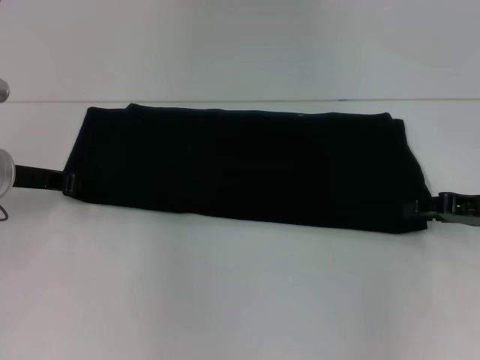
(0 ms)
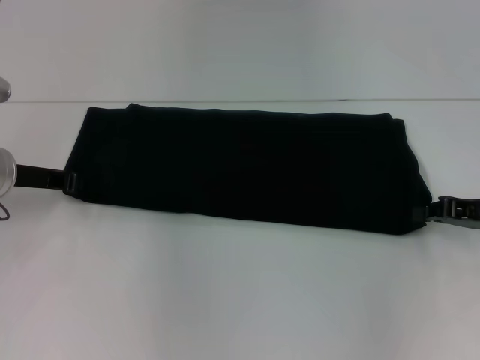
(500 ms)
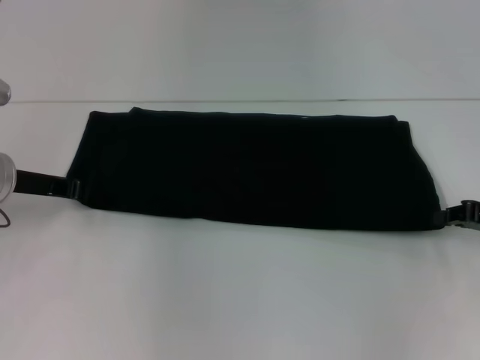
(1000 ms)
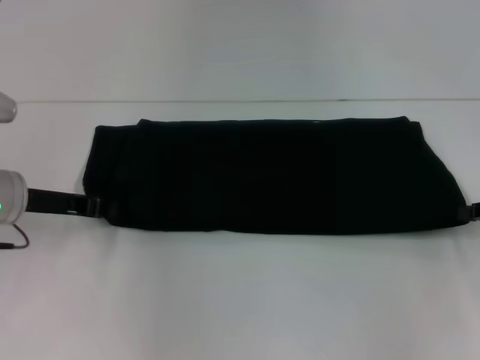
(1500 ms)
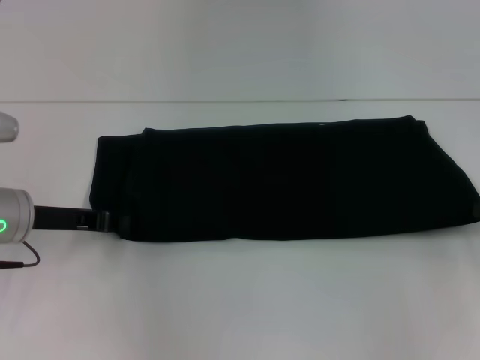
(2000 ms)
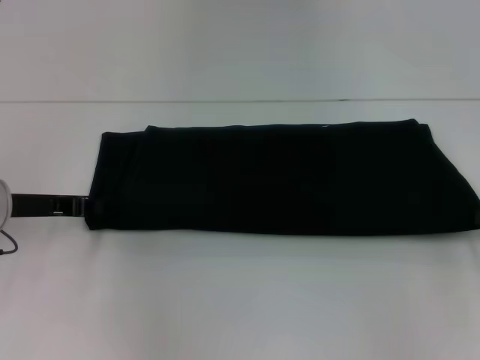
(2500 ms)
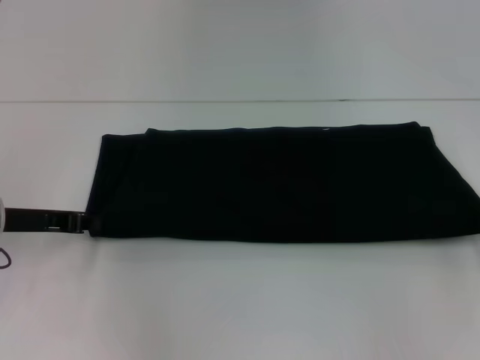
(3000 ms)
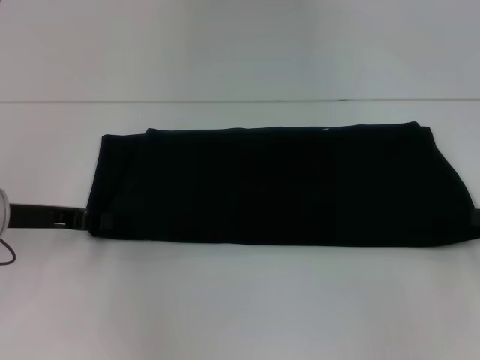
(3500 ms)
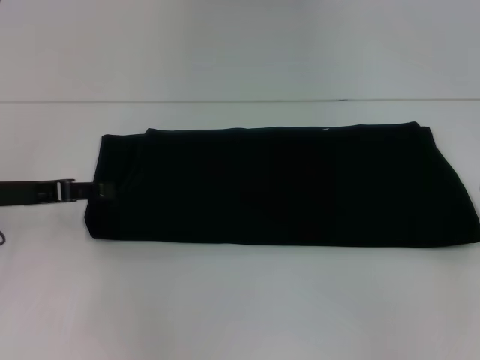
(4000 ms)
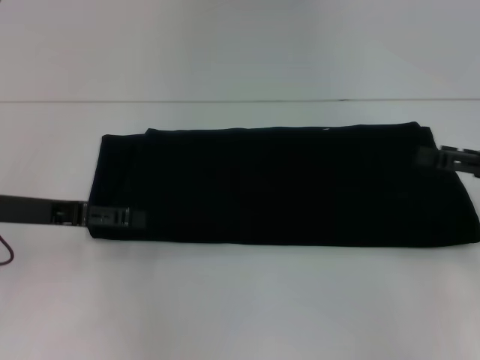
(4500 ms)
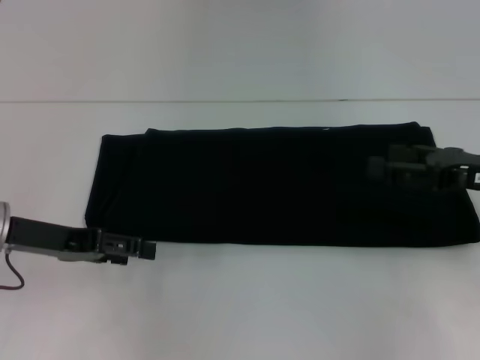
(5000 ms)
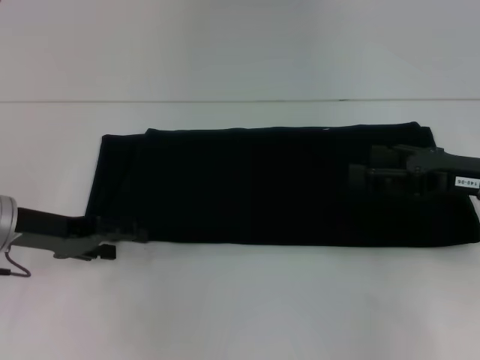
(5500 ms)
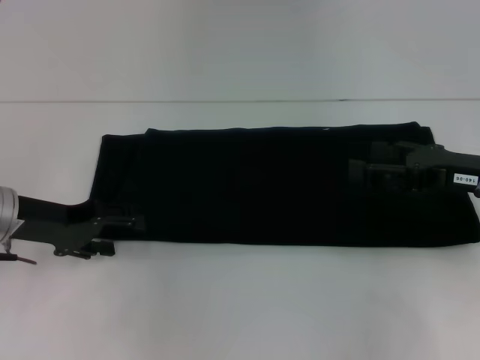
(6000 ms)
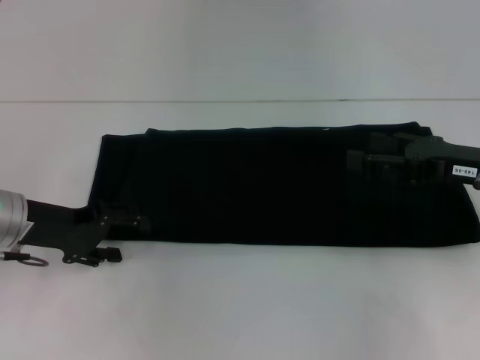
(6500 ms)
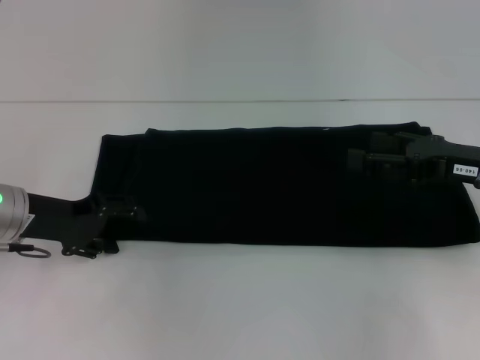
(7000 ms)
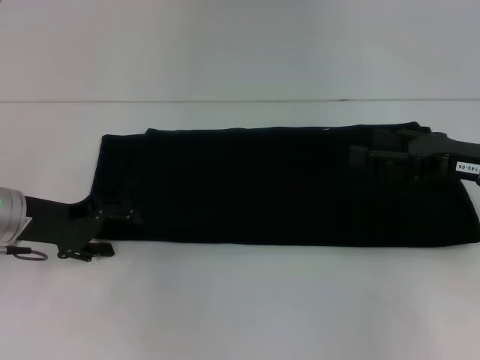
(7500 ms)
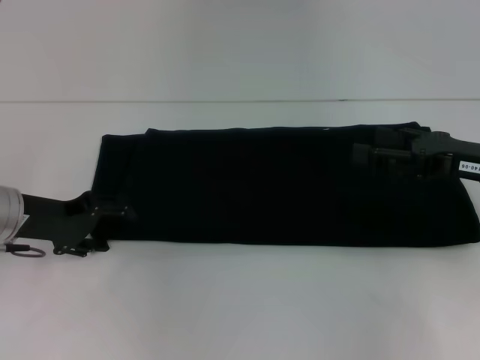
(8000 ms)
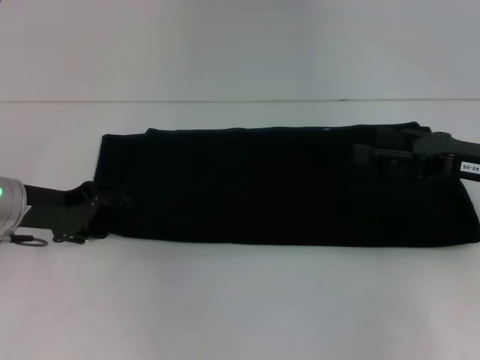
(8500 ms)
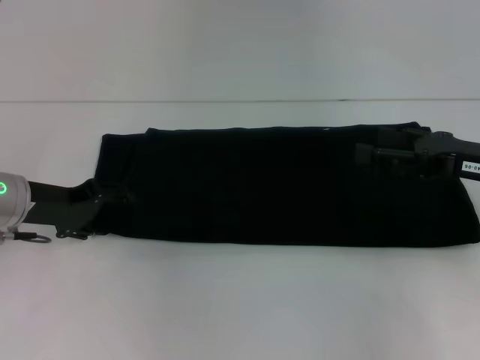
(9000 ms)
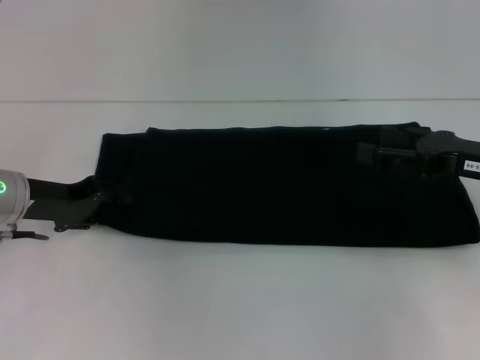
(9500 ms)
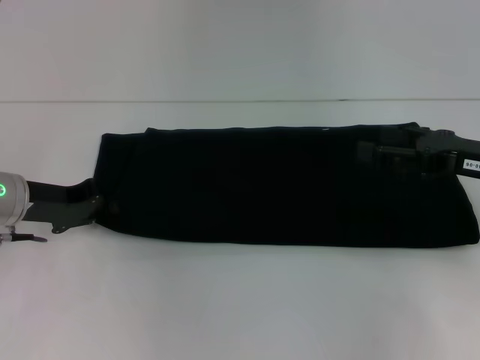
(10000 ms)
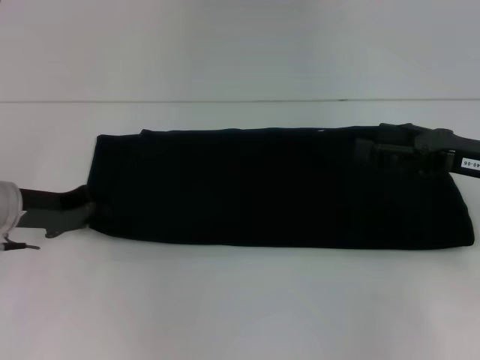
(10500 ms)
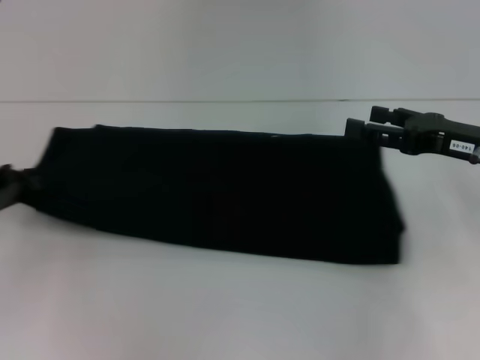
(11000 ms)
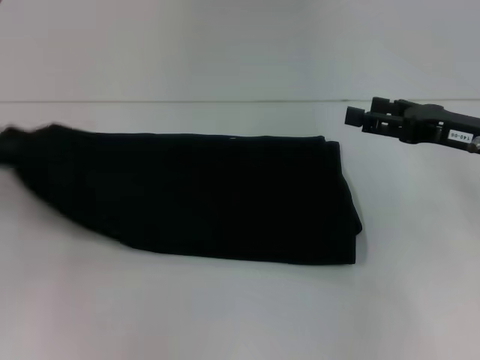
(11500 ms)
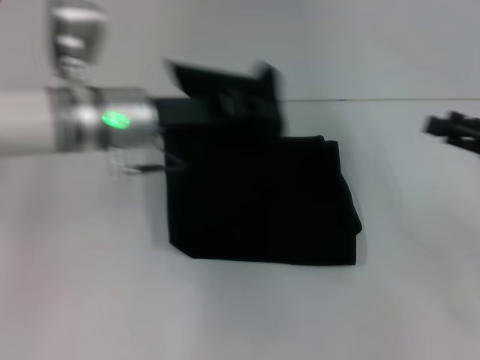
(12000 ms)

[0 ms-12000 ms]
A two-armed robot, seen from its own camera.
0 ms to 2000 ms: The right gripper goes some 5 cm to the right, and closes its fingers. Meanwhile the left gripper moves about 5 cm.
2000 ms to 4000 ms: The left gripper opens up, while the right gripper opens its fingers.
4000 ms to 6000 ms: The right gripper moves to the left, approximately 10 cm, and opens up. The left gripper opens.
6000 ms to 8000 ms: The grippers move only a little.
8000 ms to 10000 ms: The left gripper closes.
10000 ms to 12000 ms: The left gripper travels to the right and upward by approximately 15 cm; the right gripper is displaced to the right by roughly 5 cm.

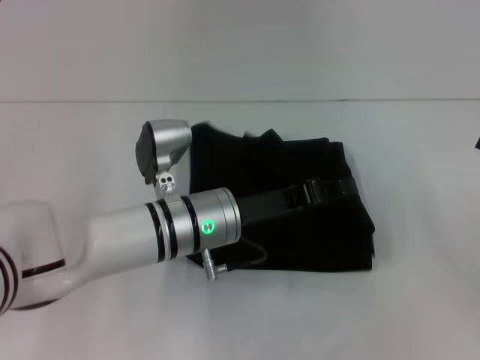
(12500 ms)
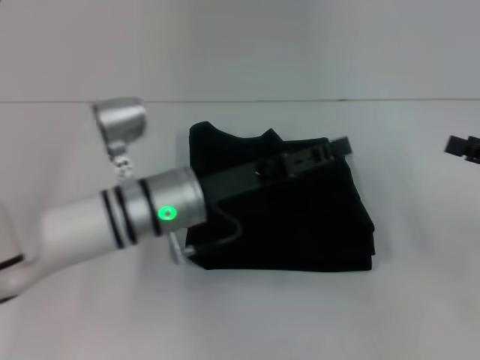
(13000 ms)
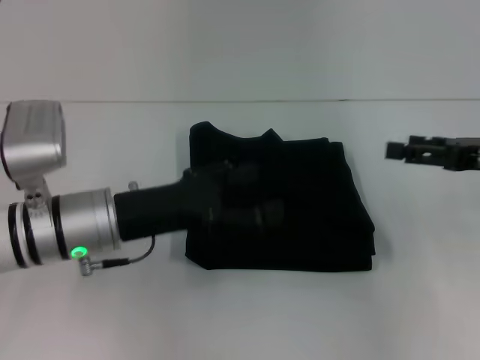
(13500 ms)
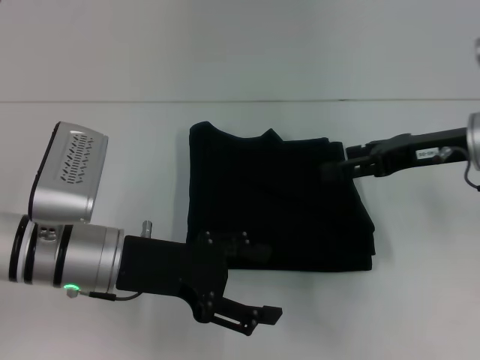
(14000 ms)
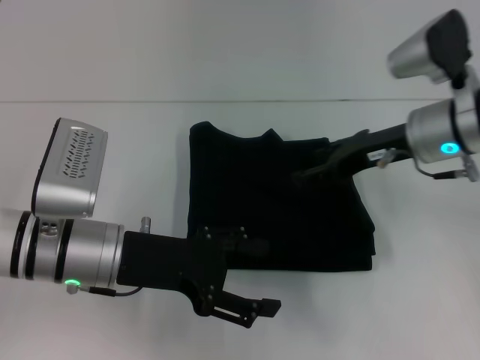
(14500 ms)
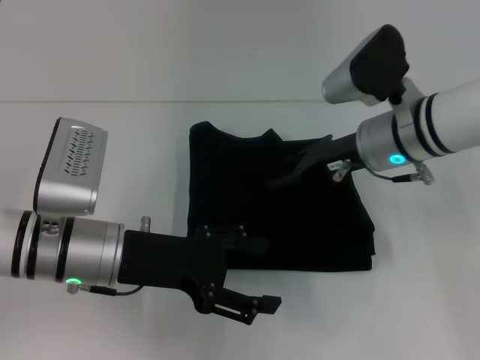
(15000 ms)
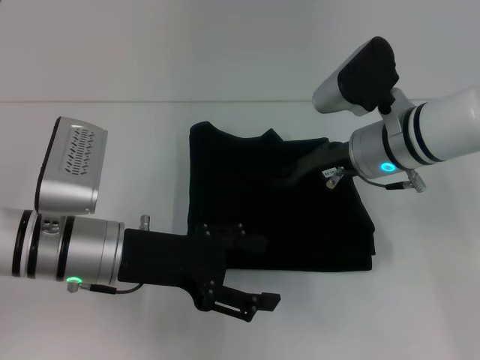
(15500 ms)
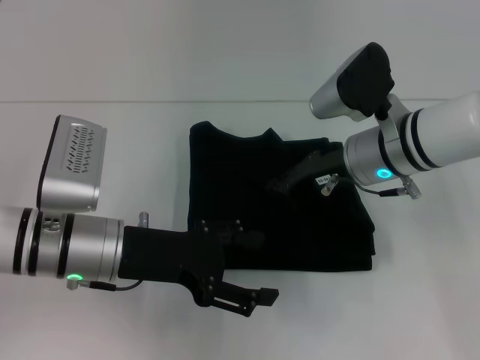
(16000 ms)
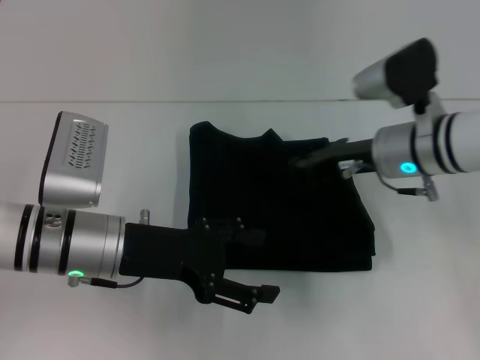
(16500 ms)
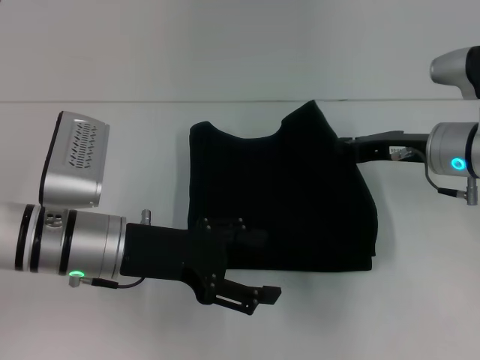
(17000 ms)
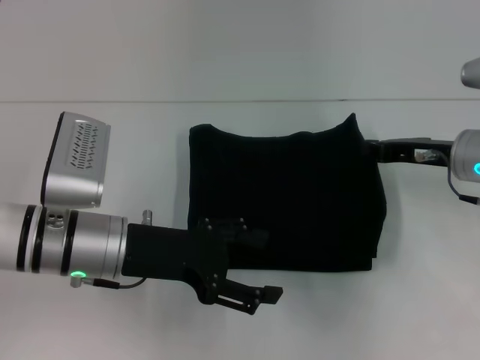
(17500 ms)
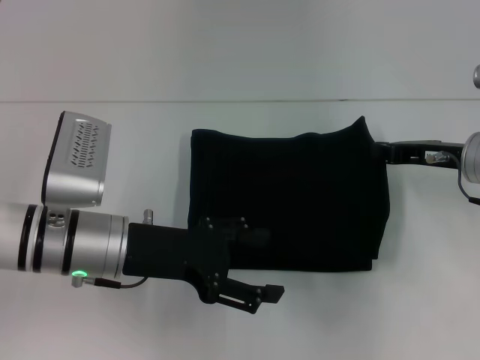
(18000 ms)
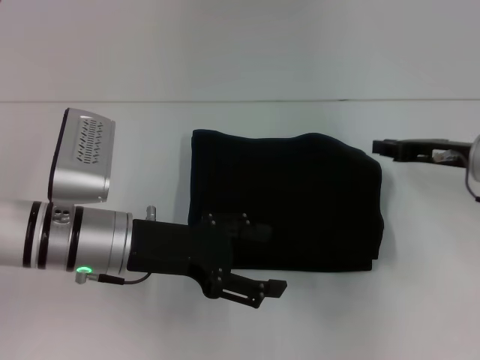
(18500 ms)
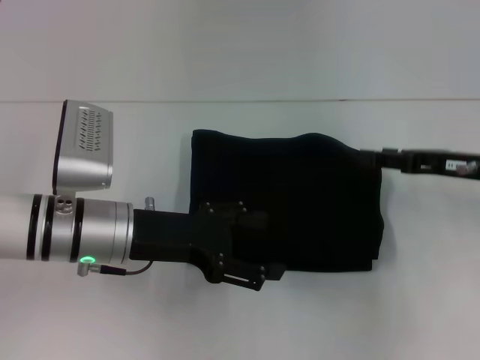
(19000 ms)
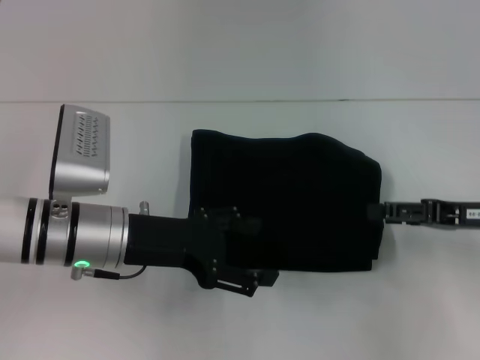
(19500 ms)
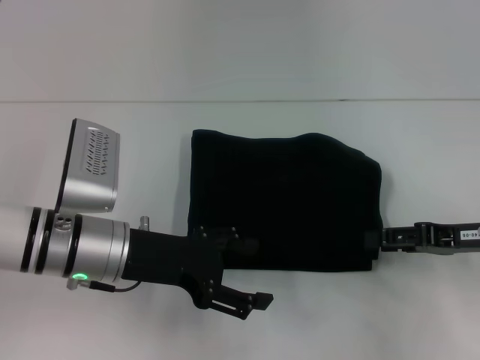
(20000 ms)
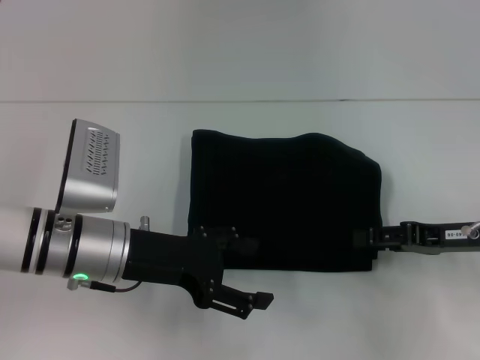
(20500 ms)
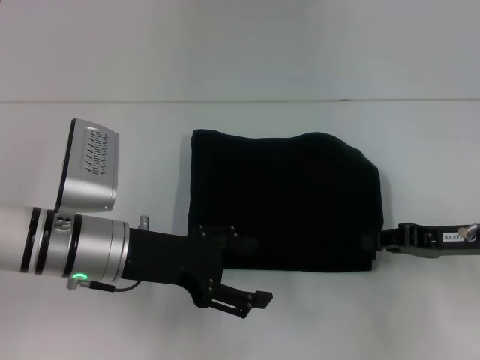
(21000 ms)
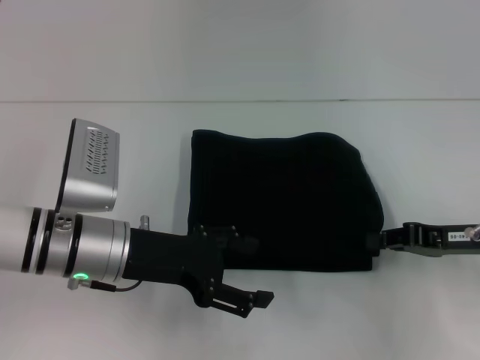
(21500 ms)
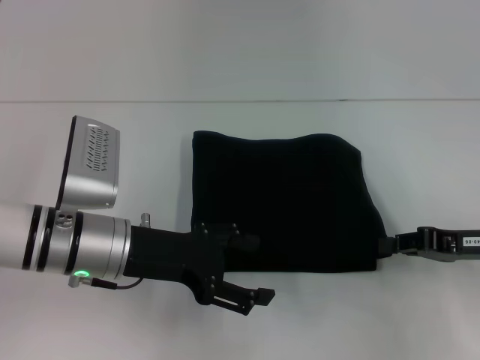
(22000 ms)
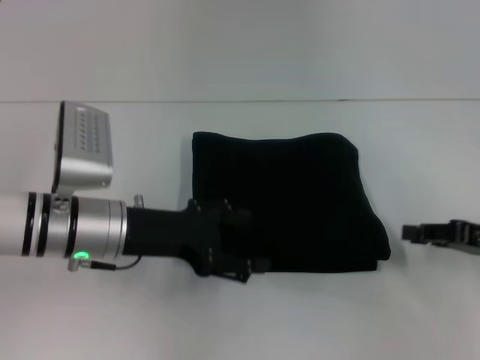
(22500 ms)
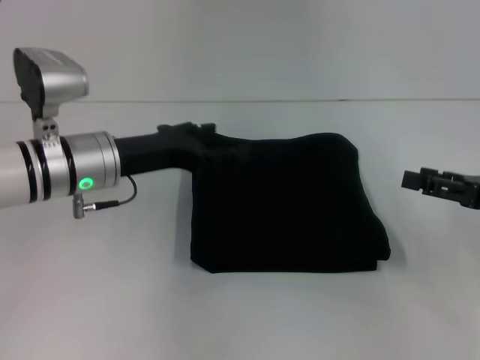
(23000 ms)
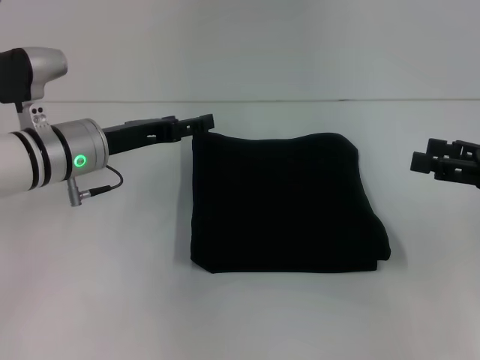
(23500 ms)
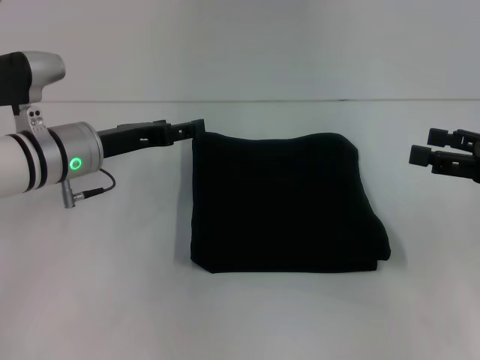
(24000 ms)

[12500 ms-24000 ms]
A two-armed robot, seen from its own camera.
12500 ms to 14500 ms: The left gripper heads to the left, covering approximately 10 cm, and opens. Meanwhile the right gripper goes about 20 cm to the left and forward.
14500 ms to 16500 ms: The right gripper closes its fingers.
16500 ms to 18500 ms: The right gripper moves to the right, about 10 cm.
18500 ms to 20000 ms: The right gripper goes approximately 5 cm backward, and opens up.
20000 ms to 22000 ms: The right gripper closes its fingers.
22000 ms to 24000 ms: The left gripper moves forward, some 10 cm; the right gripper is displaced upward by about 5 cm, and opens its fingers.

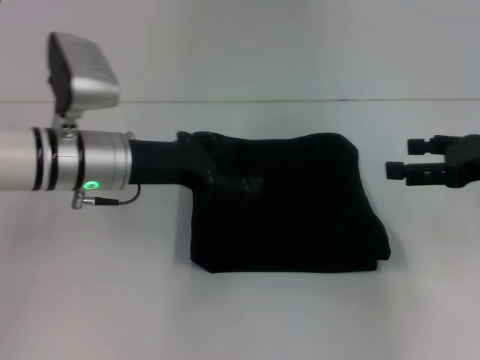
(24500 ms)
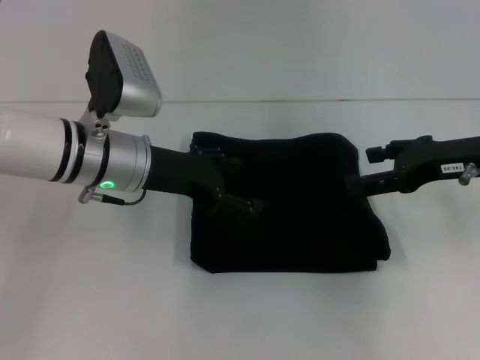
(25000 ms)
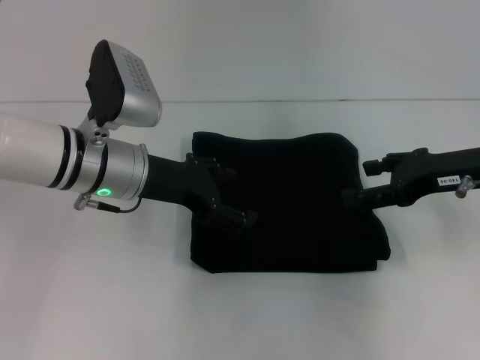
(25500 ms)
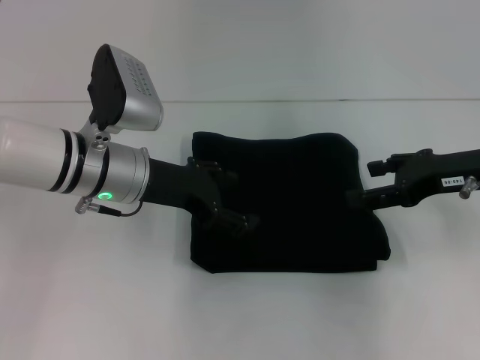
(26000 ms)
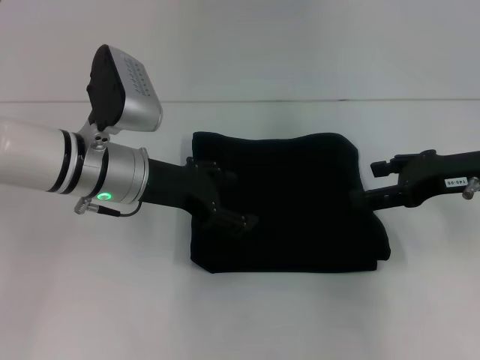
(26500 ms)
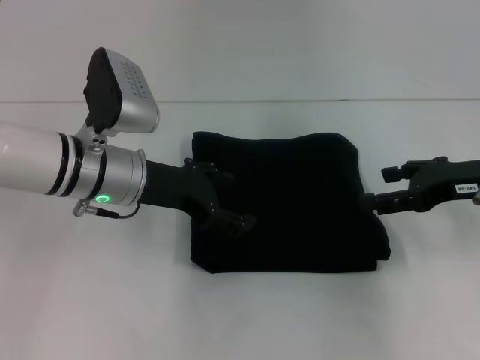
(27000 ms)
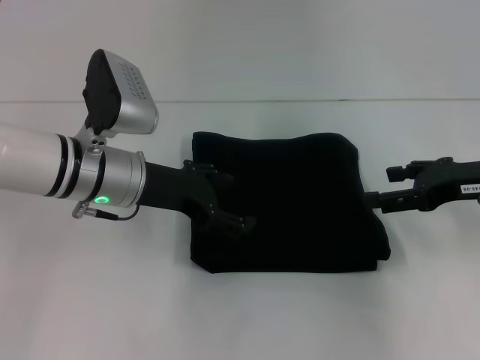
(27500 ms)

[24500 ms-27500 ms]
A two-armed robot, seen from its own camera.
24500 ms to 27500 ms: The grippers stay close to where they were, moving slightly.
